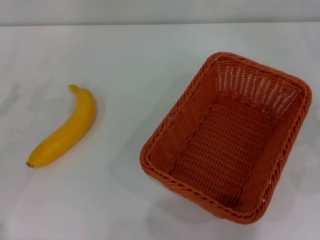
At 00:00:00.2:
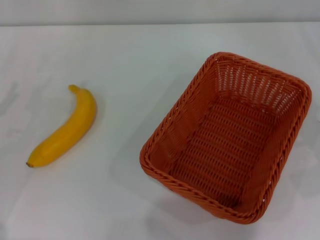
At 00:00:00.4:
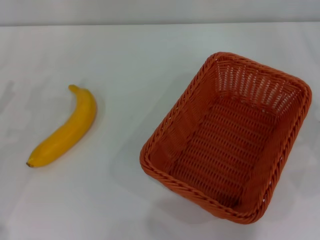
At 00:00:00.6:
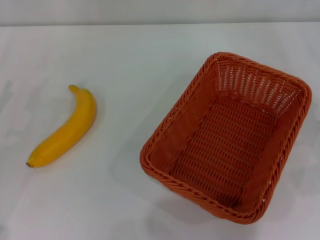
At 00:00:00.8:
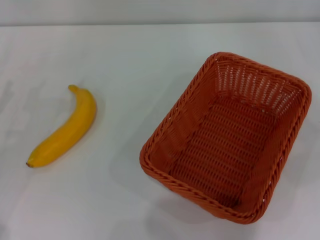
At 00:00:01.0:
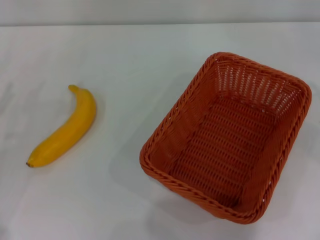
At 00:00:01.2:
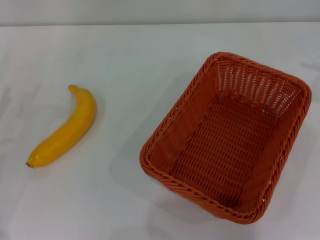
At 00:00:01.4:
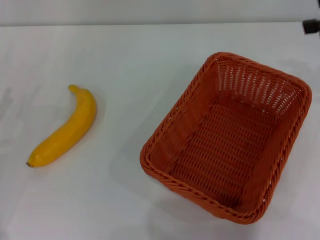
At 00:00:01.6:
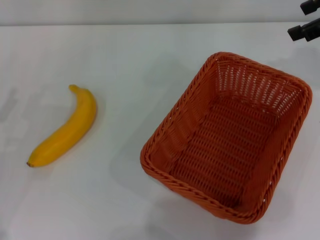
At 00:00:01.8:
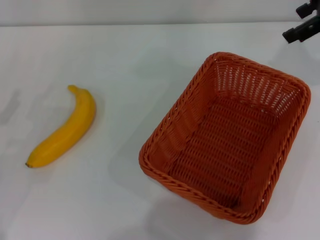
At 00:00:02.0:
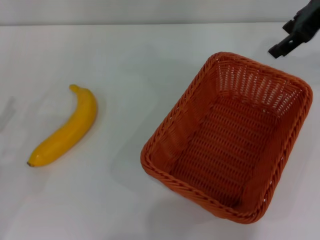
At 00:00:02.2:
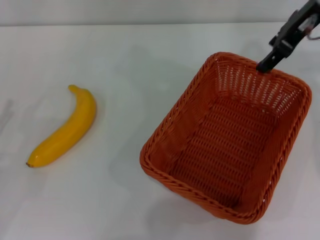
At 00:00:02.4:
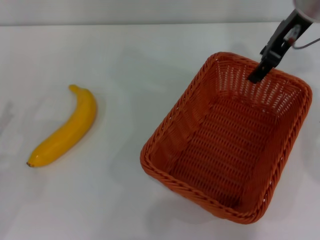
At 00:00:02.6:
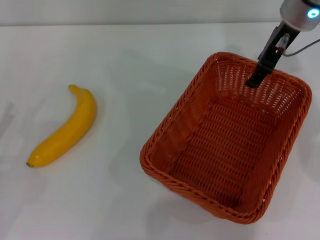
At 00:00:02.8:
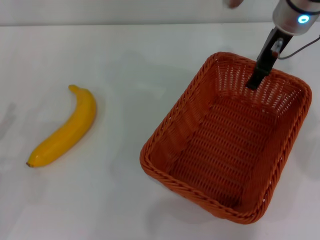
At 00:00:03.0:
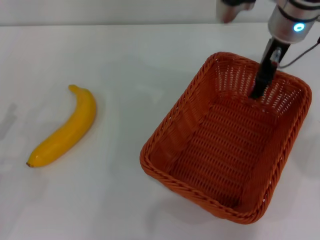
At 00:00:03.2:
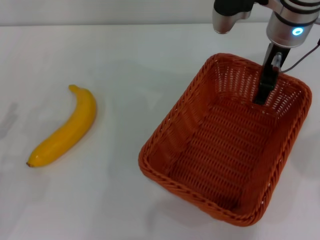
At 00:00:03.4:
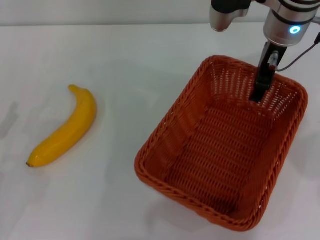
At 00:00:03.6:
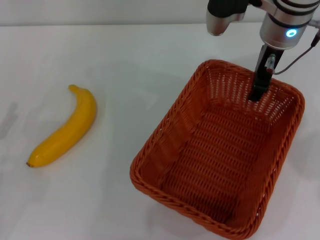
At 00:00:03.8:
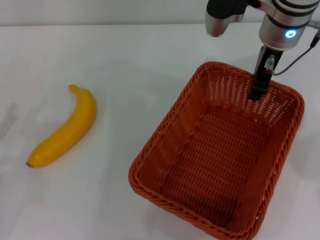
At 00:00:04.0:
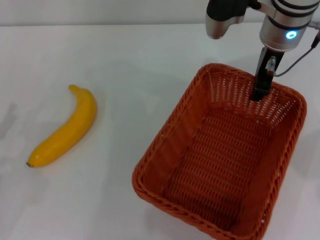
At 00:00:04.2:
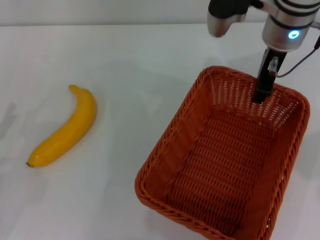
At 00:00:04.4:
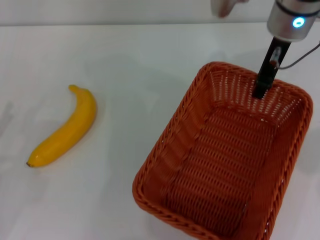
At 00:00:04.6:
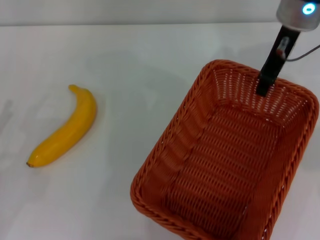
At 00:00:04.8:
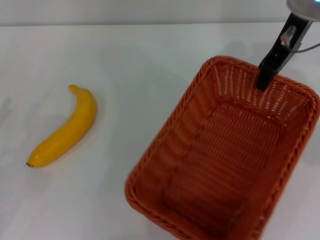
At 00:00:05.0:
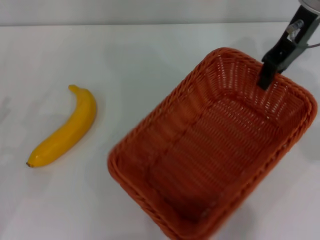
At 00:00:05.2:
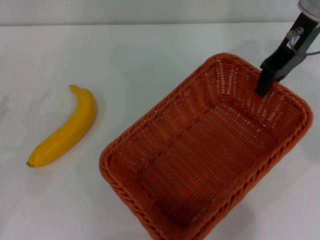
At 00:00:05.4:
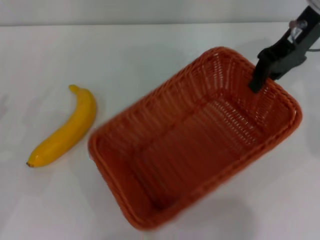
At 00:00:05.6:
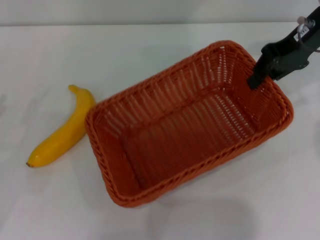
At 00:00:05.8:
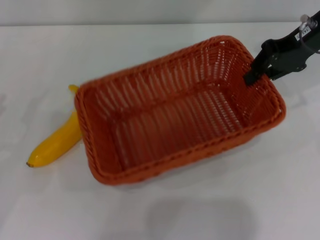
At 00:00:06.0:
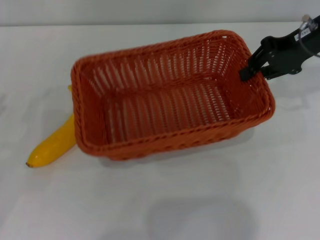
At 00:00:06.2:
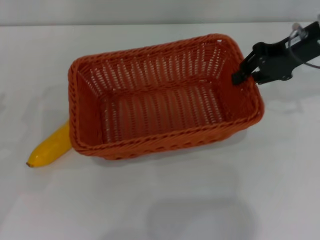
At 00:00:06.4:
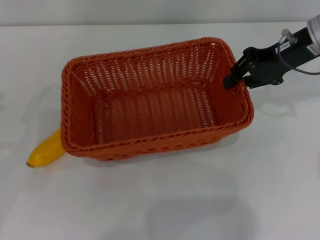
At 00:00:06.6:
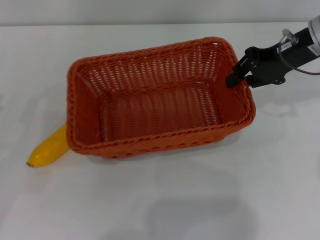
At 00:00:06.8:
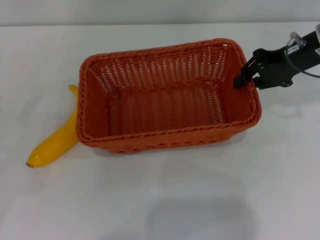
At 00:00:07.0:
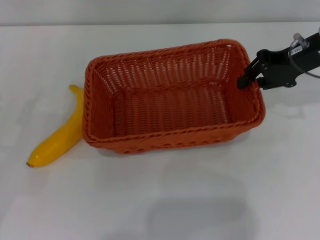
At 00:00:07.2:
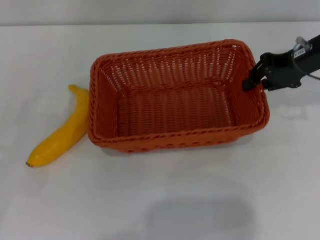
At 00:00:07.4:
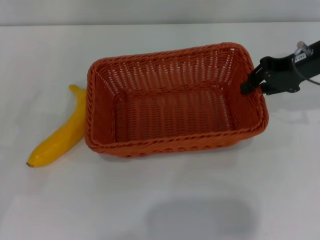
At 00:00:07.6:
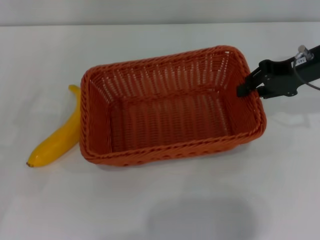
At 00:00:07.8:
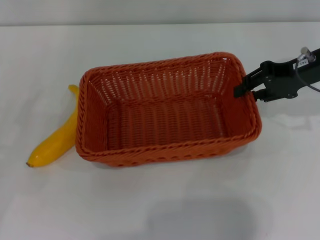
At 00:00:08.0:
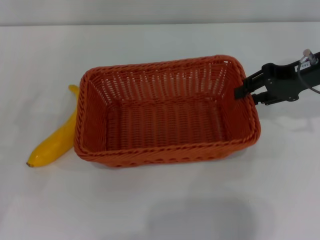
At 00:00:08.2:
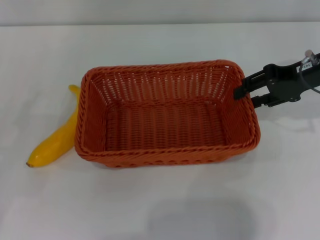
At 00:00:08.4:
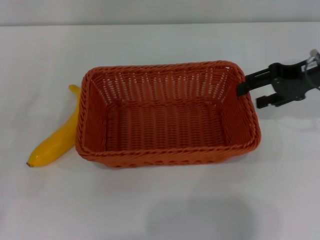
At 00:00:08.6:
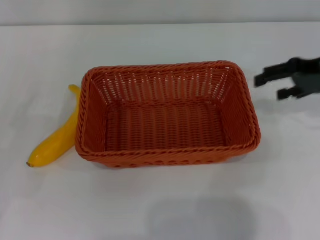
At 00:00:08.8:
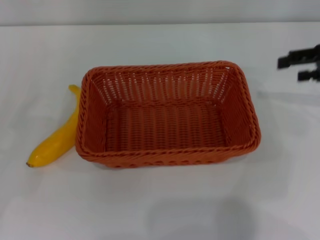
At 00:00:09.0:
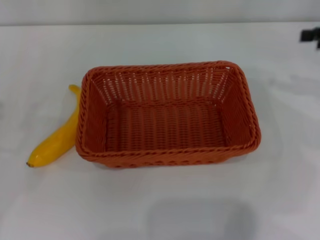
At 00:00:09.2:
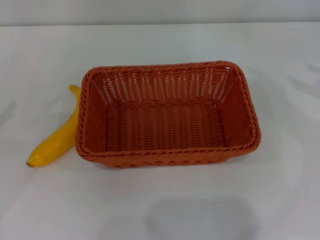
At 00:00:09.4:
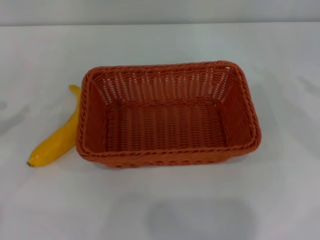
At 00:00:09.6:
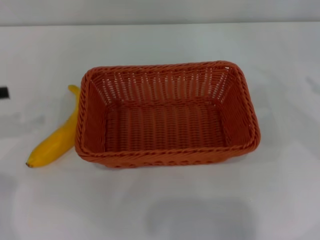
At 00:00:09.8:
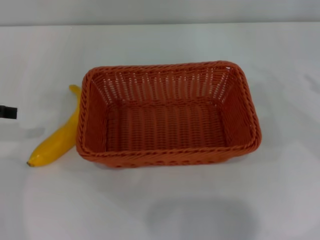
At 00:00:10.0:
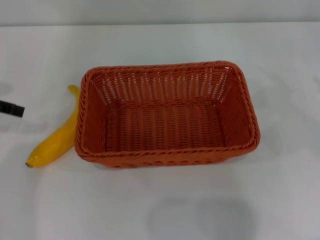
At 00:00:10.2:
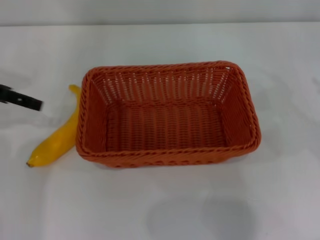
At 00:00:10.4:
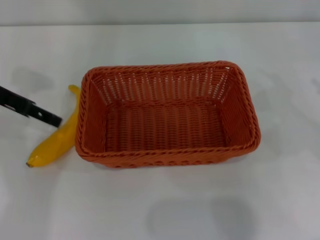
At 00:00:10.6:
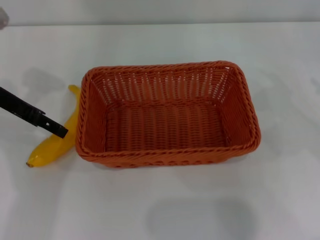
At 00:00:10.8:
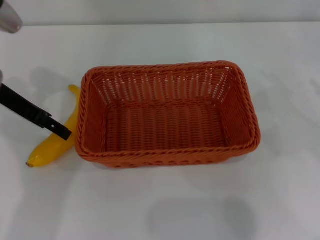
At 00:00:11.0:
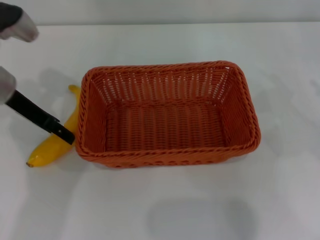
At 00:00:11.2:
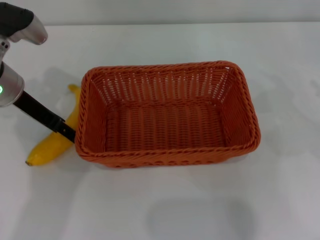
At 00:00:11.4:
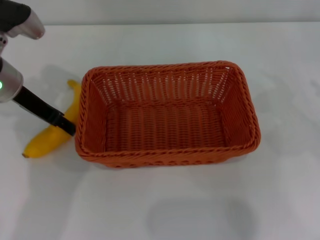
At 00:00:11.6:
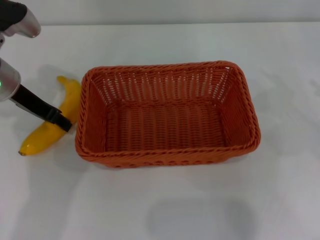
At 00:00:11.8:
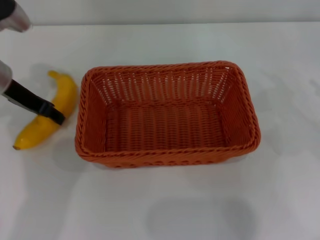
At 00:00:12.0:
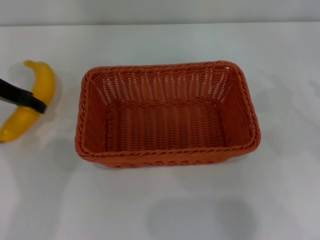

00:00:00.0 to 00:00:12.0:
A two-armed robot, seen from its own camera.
Step, 00:00:00.0 to 00:00:04.6: Pick up the light basket with the right gripper.
Step, 00:00:04.8 to 00:00:08.6: Place the light basket in the center of view with the right gripper.
00:00:00.0 to 00:00:01.6: The right gripper moves upward, forward and to the left, approximately 25 cm.
00:00:01.6 to 00:00:03.0: The right gripper heads to the left and downward, covering roughly 20 cm.
00:00:03.0 to 00:00:04.4: The right gripper closes its fingers.
00:00:04.4 to 00:00:06.0: The right gripper travels to the right by about 10 cm.
00:00:06.0 to 00:00:07.6: The grippers move only a little.
00:00:07.6 to 00:00:09.0: The right gripper is displaced to the right by some 10 cm, and opens its fingers.
00:00:09.0 to 00:00:10.4: The left gripper heads forward and to the right, covering approximately 20 cm.
00:00:10.4 to 00:00:12.0: The left gripper closes its fingers.

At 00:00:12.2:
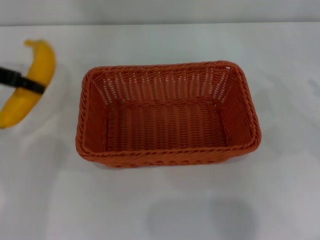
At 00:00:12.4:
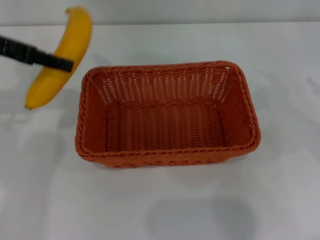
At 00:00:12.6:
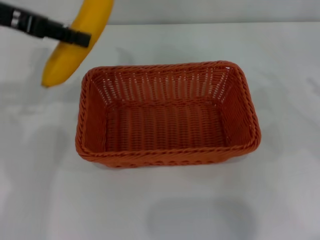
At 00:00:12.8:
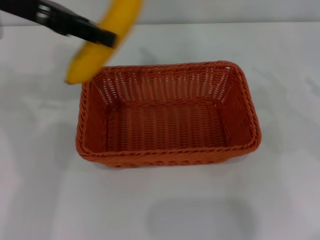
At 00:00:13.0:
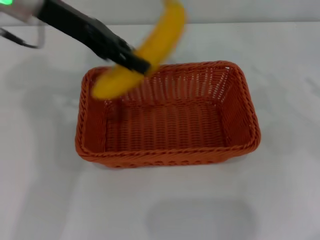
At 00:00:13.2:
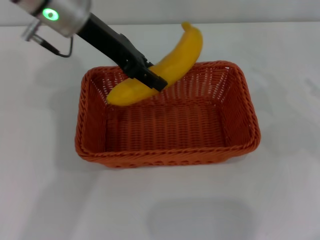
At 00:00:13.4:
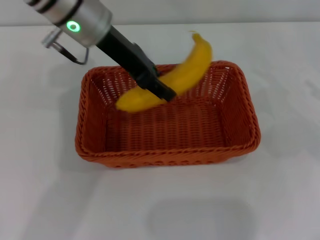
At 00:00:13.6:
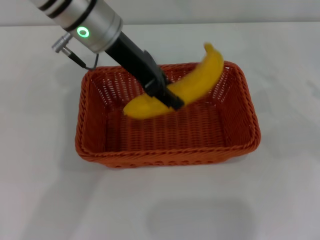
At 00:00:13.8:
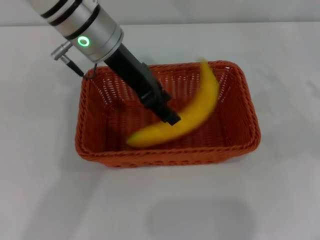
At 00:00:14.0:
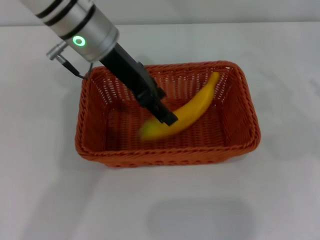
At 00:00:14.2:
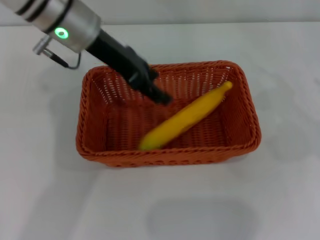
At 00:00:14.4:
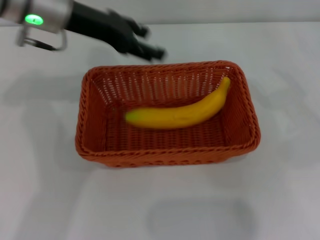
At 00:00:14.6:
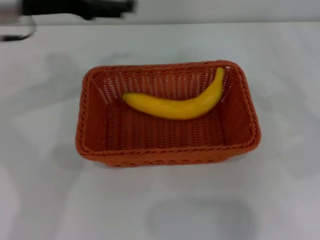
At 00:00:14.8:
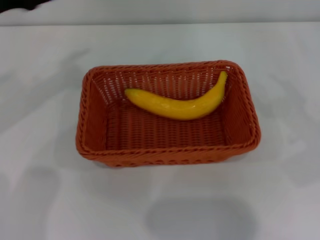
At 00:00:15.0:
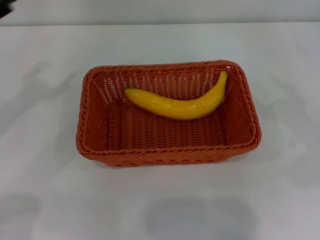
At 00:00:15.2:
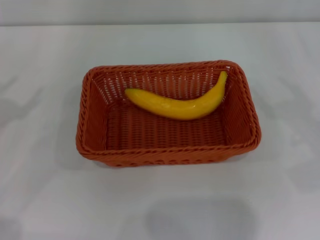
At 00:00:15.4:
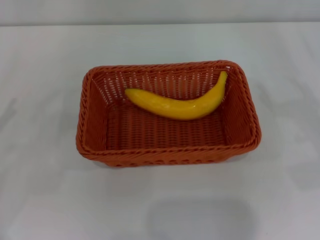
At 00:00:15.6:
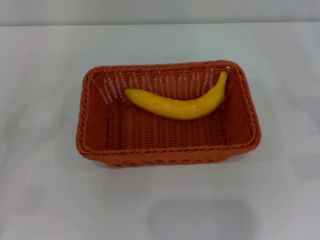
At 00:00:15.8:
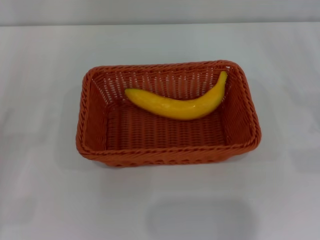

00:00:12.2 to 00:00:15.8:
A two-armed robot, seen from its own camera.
Step, 00:00:12.4 to 00:00:14.2: Place the banana into the light basket with the left gripper.
00:00:12.2 to 00:00:14.0: The left gripper shifts about 20 cm to the right, and opens up.
00:00:14.0 to 00:00:15.8: The left gripper is displaced to the left, backward and downward by about 40 cm, while the right gripper shifts some 5 cm downward.
